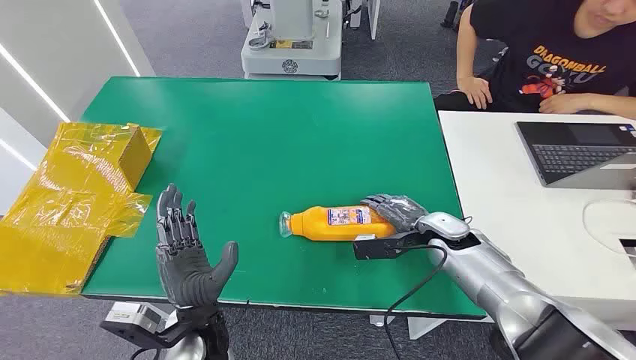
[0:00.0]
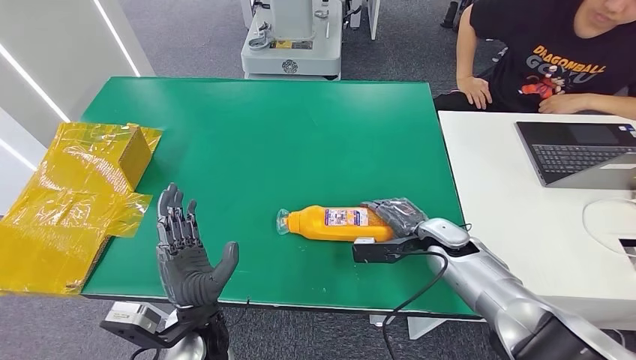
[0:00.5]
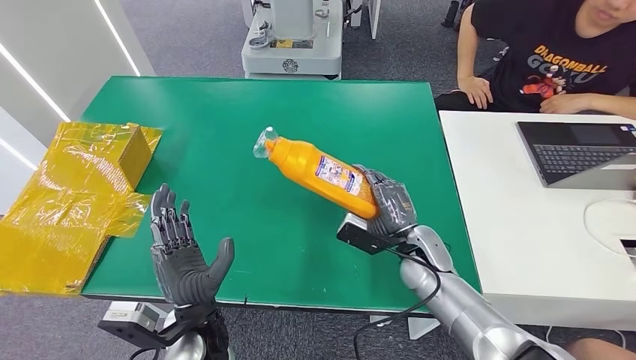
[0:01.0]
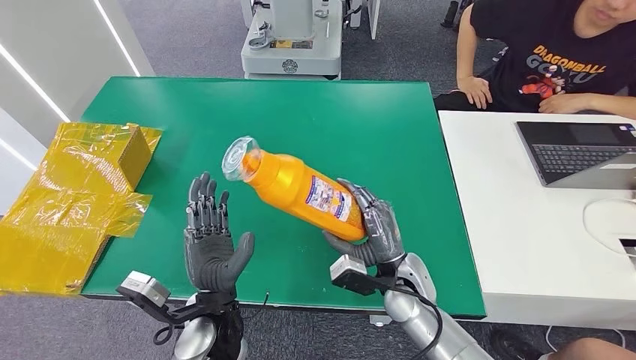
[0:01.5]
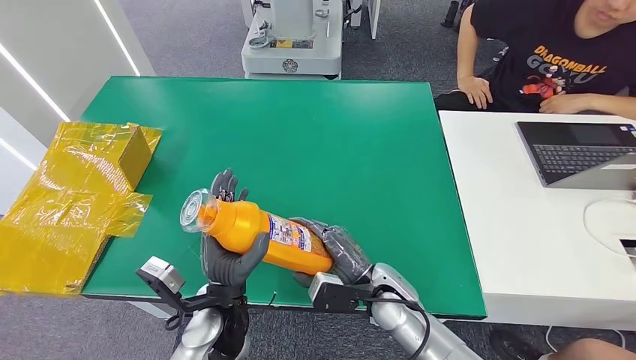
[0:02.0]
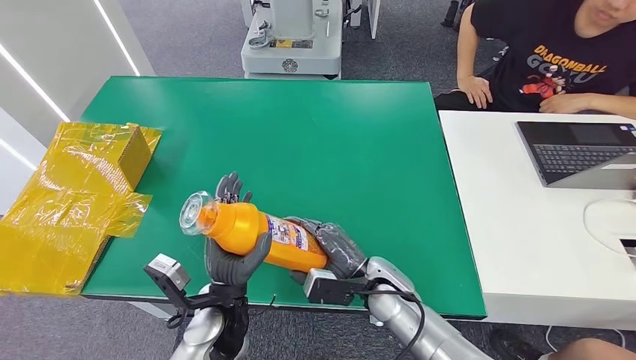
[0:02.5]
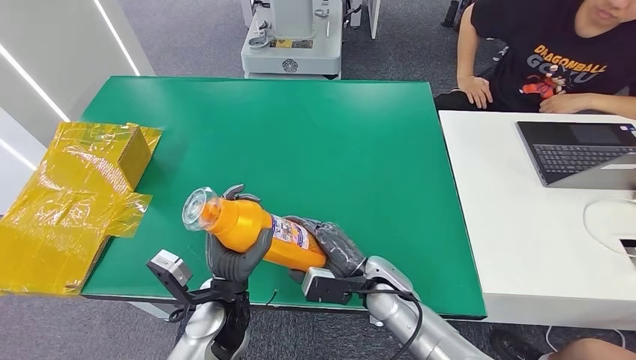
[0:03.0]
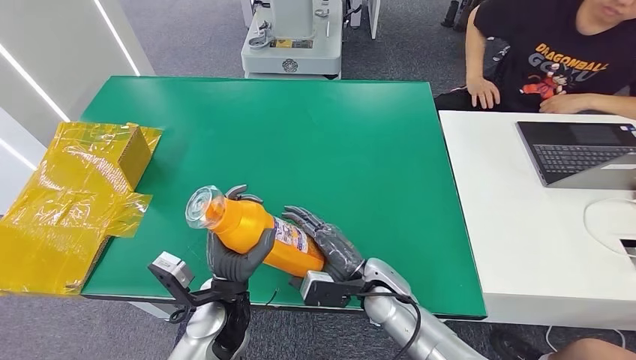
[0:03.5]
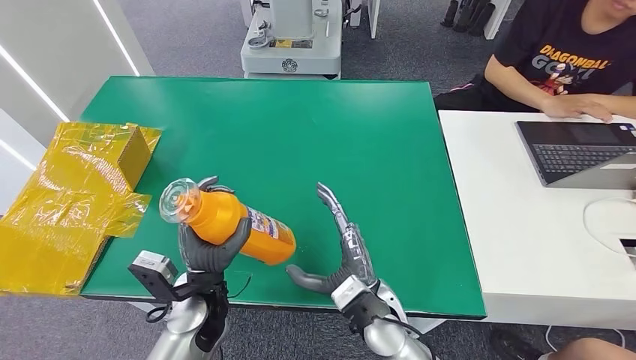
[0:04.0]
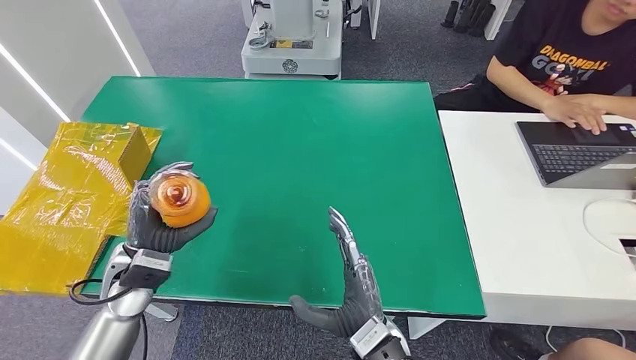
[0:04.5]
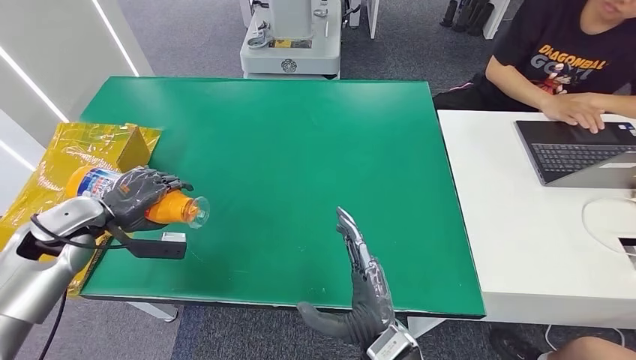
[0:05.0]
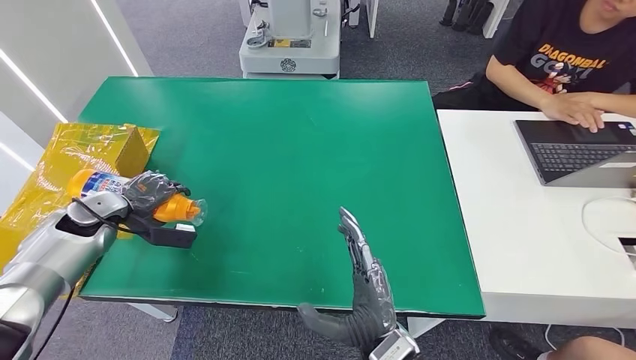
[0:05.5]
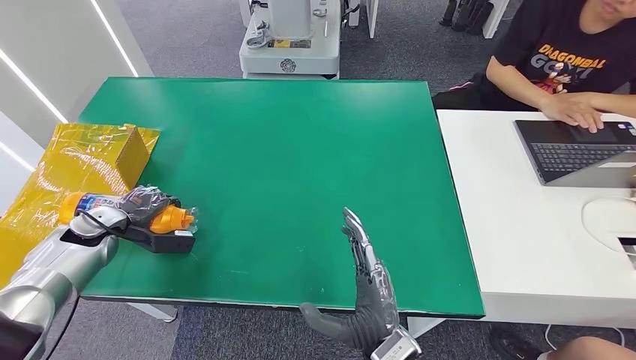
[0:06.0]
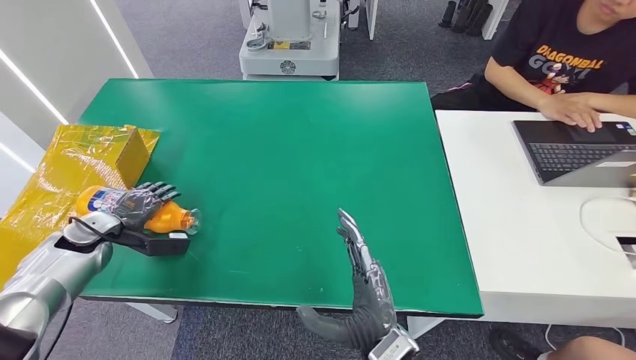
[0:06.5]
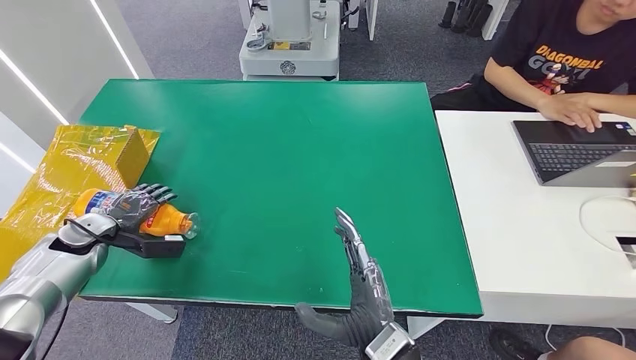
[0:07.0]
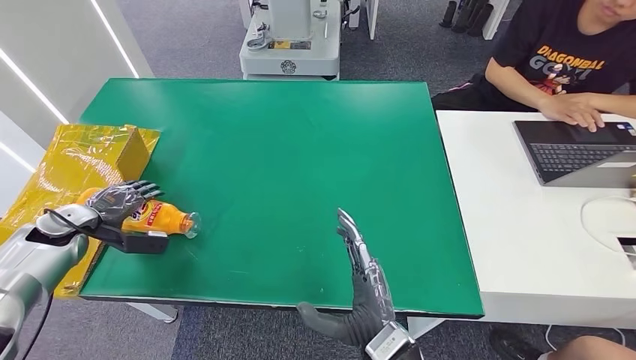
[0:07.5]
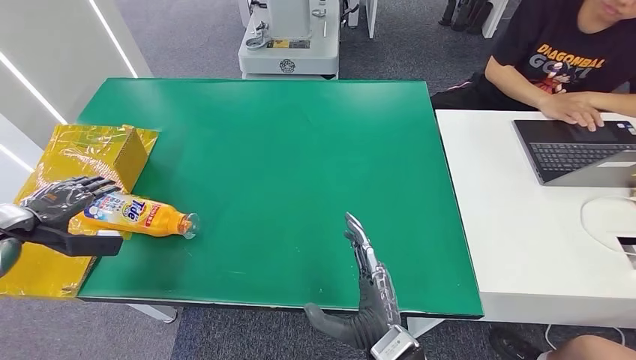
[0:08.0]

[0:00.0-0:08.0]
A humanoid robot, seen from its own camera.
Step, 0:00.0 to 0:01.5: Pick up the bottle from the table.
Step, 0:02.0 to 0:08.0: Turn the bottle to the front side.
0:02.0 to 0:04.0: The right hand changes place by some 5 cm.
0:04.0 to 0:06.0: The right hand heads backward, covering about 10 cm; the left hand moves to the left and forward, about 30 cm.
0:06.0 to 0:08.0: The left hand travels to the left and upward by approximately 15 cm.

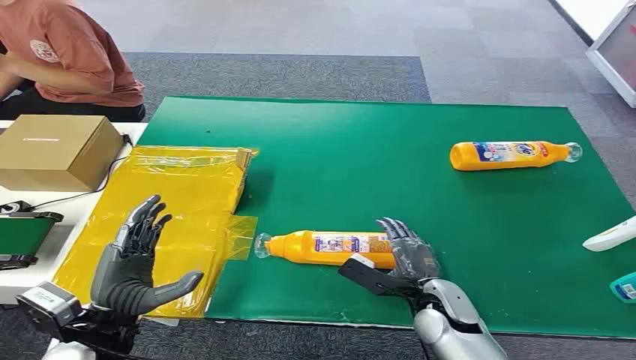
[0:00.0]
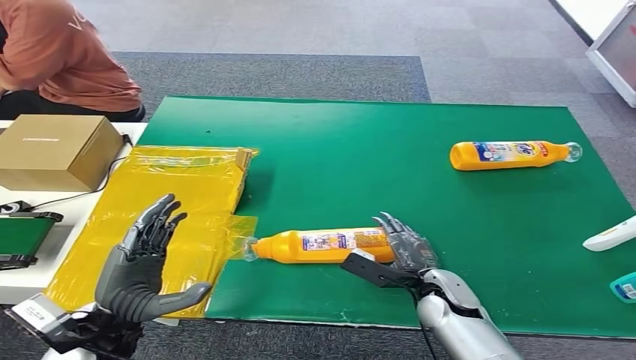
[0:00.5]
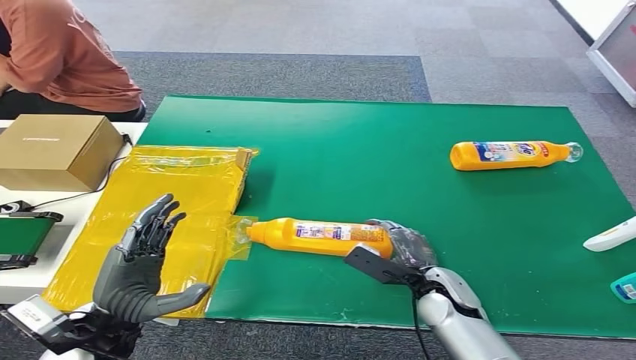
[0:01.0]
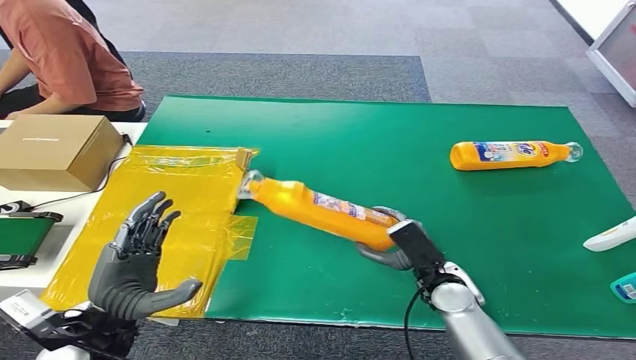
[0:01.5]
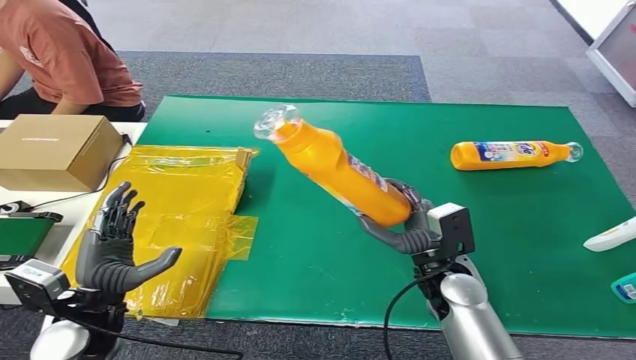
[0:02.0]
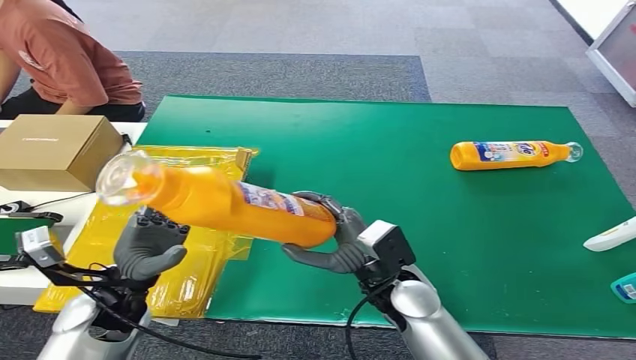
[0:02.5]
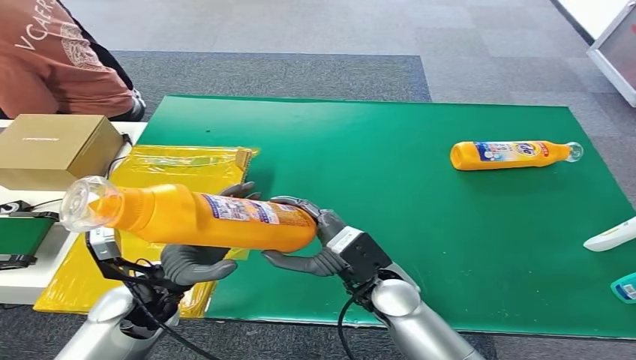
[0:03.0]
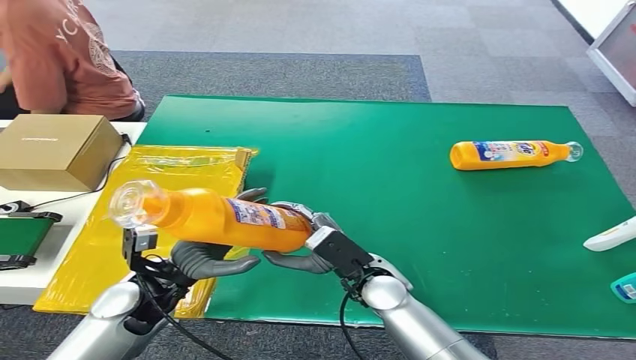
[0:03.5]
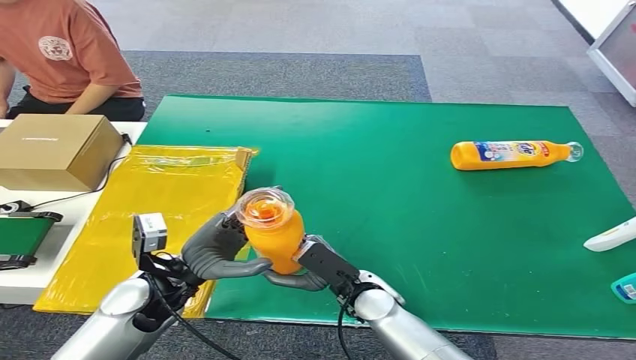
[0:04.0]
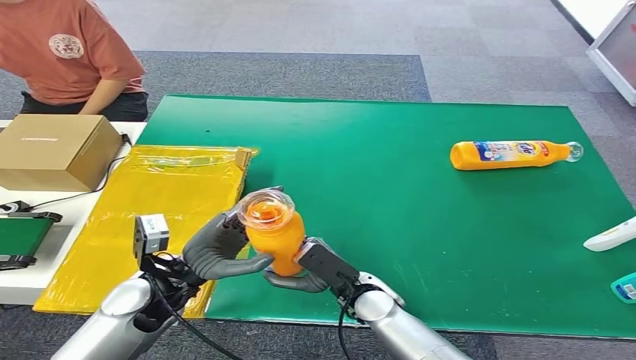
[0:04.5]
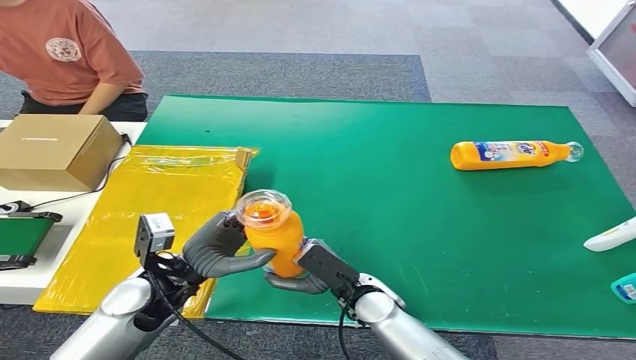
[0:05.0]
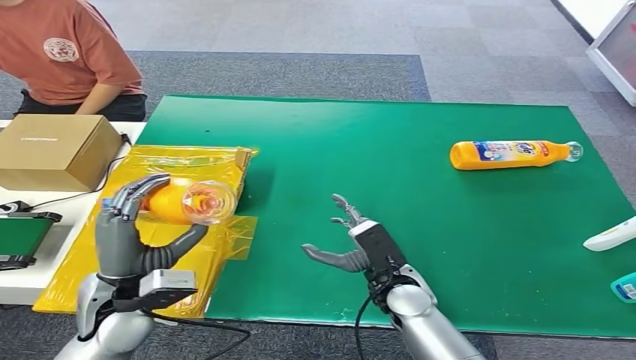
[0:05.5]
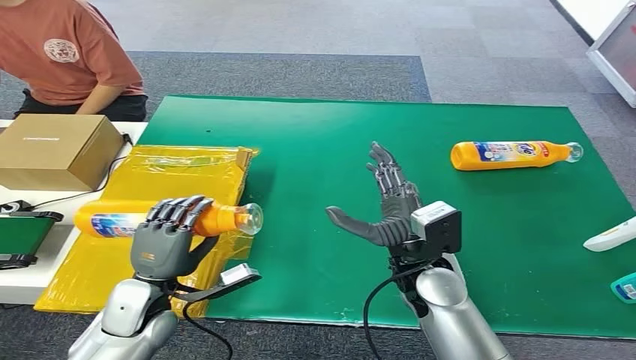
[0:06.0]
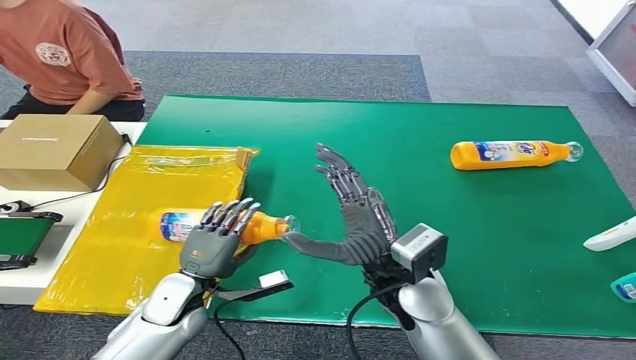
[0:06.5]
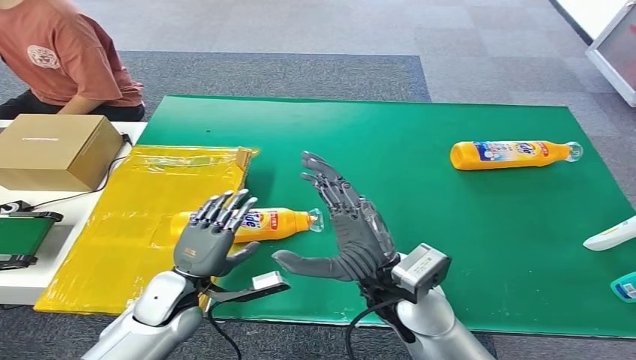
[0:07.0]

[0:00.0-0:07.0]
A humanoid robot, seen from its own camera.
Step, 0:00.0 to 0:01.5: Pick up the bottle from the table.
Step, 0:02.0 to 0:07.0: Turn the bottle to the front side.
0:03.5 to 0:05.0: The right hand shifts by roughly 5 cm.
0:05.0 to 0:07.0: The right hand shifts approximately 15 cm upward, while the left hand moves downward, approximately 5 cm.
